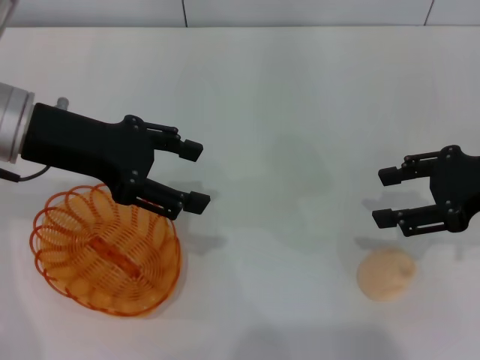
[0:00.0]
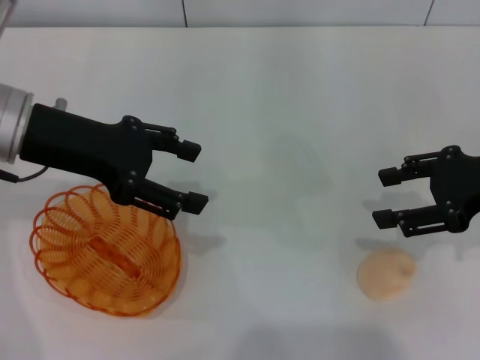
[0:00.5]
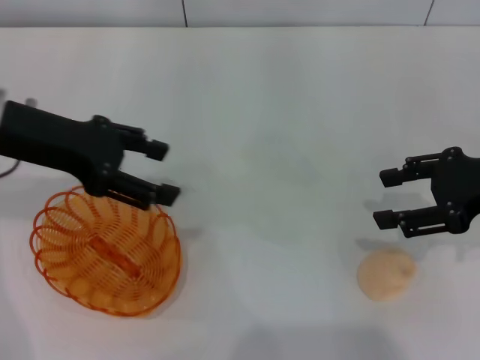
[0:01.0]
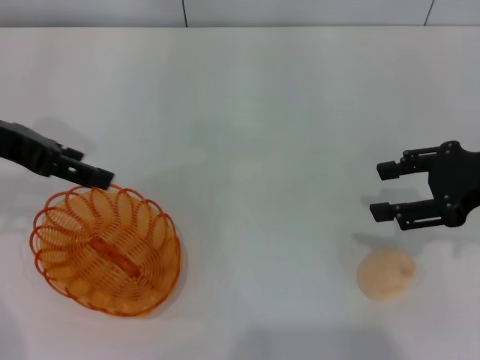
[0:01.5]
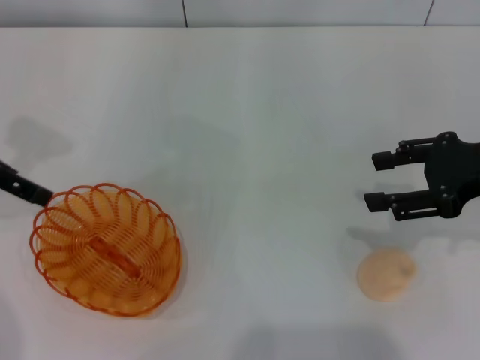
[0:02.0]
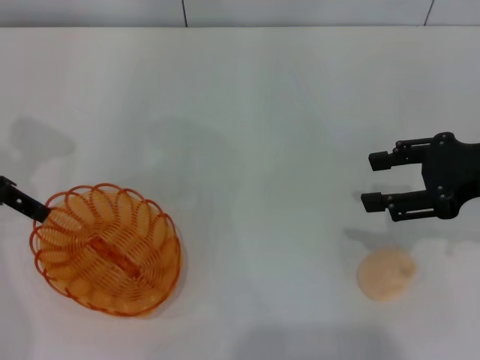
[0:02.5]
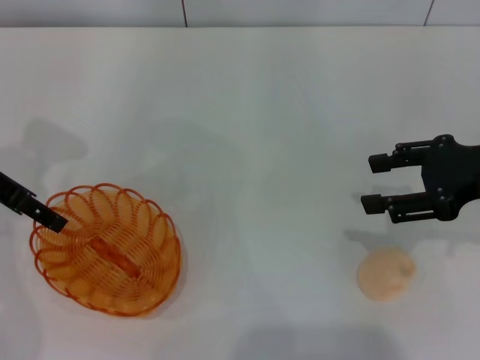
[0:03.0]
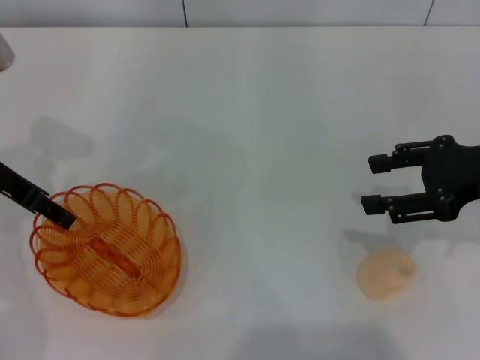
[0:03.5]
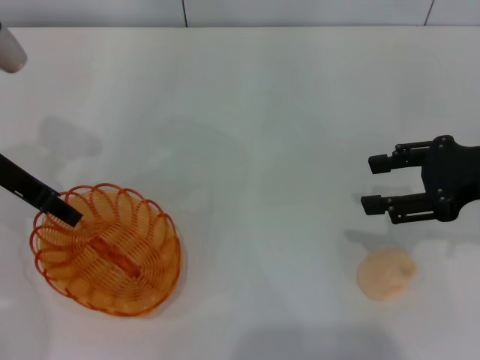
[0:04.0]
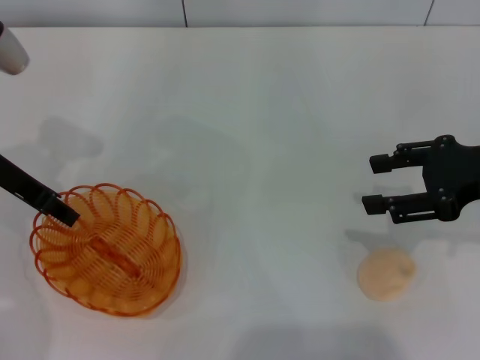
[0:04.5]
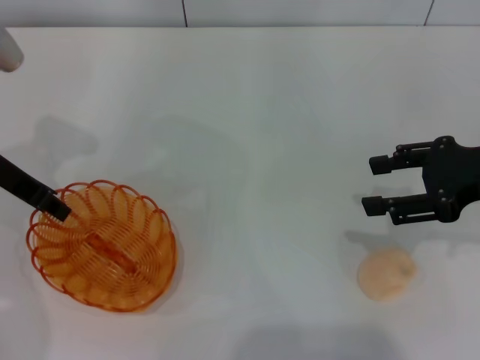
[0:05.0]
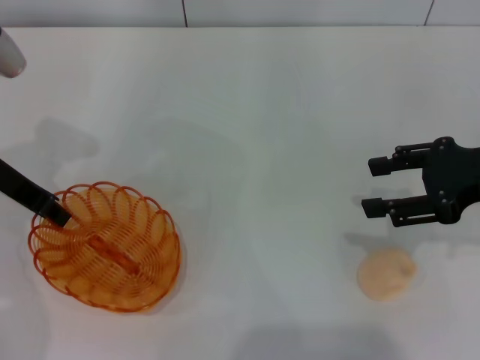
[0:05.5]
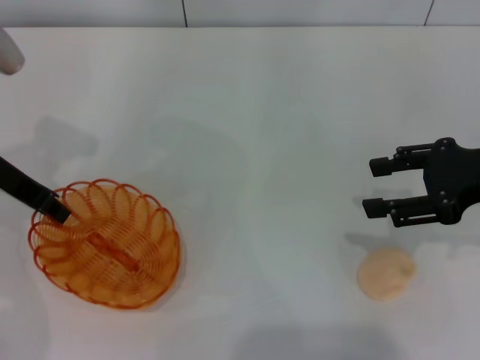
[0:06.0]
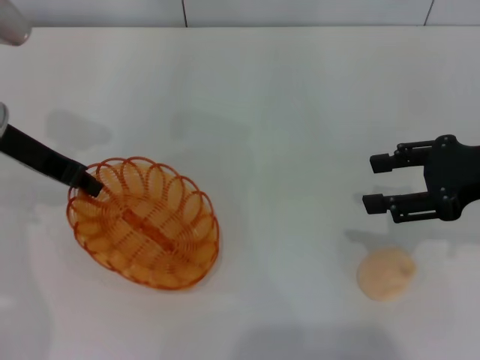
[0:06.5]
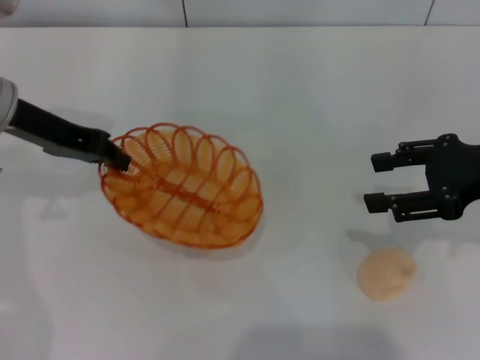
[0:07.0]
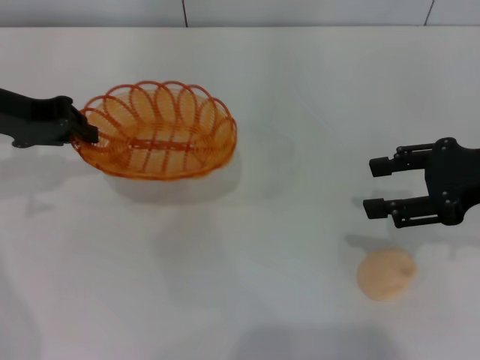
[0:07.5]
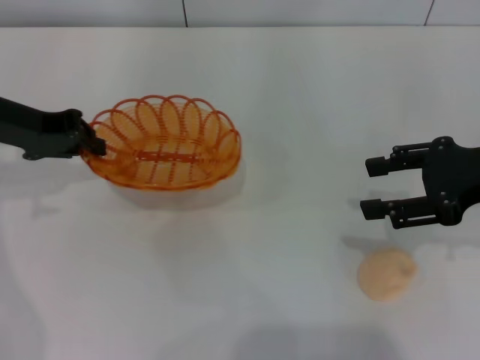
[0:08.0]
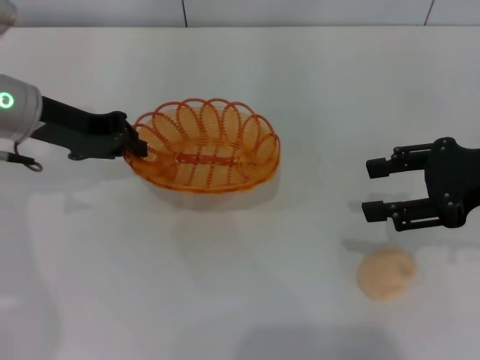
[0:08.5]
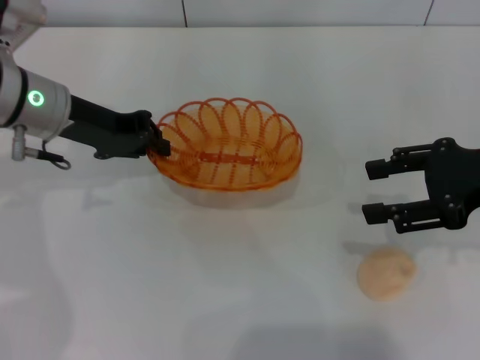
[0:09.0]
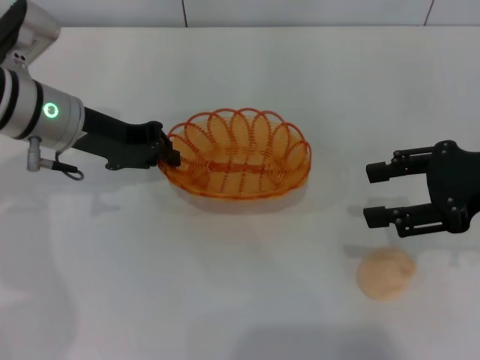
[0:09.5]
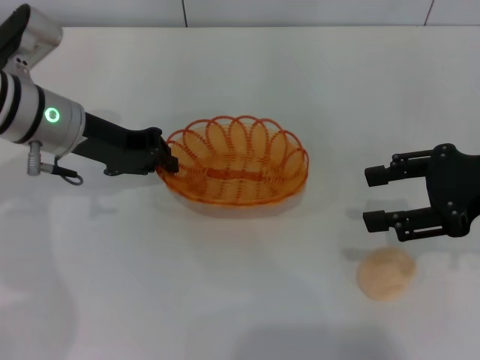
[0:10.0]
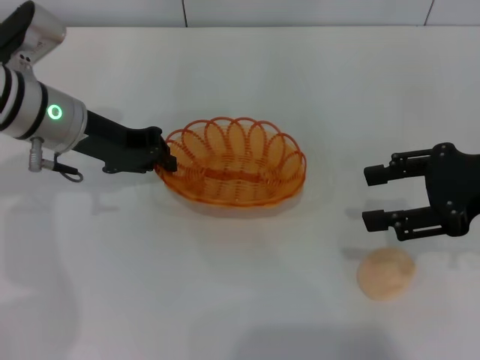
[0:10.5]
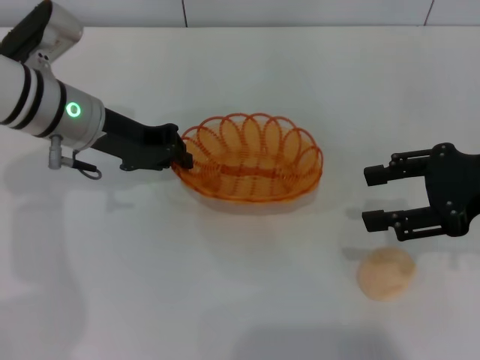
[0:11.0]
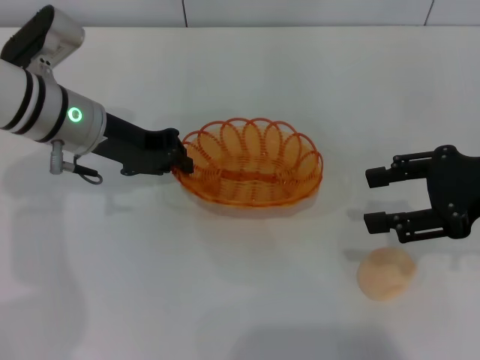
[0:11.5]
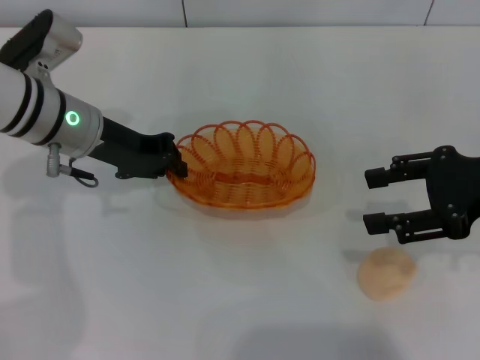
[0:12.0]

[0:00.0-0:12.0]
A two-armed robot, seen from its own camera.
Step, 0:00.0 to 0:07.0: Pick up the basket with the left gripper.
0:00.0 to 0:02.0: The left gripper travels to the left by some 10 cm.
0:02.0 to 0:04.0: The left gripper is displaced downward by approximately 5 cm.
0:04.0 to 0:06.0: The left gripper closes up.
0:08.0 to 0:10.0: The left gripper goes approximately 5 cm to the right.
0:10.0 to 0:12.0: There are only small adjustments of the grippers.

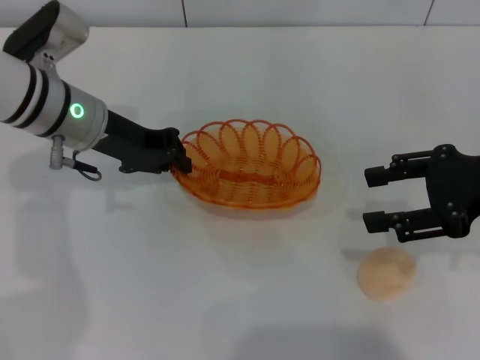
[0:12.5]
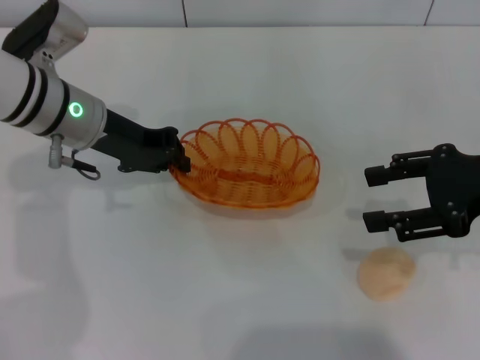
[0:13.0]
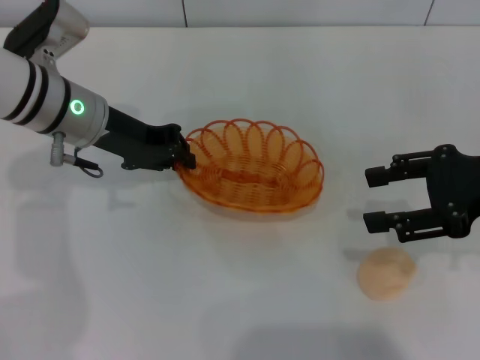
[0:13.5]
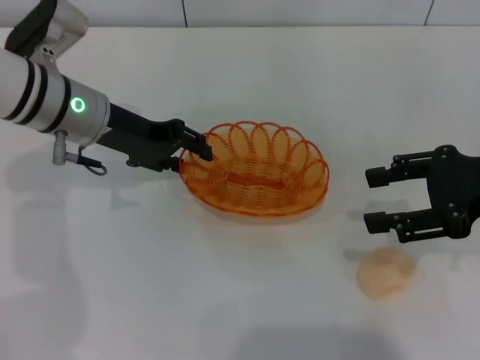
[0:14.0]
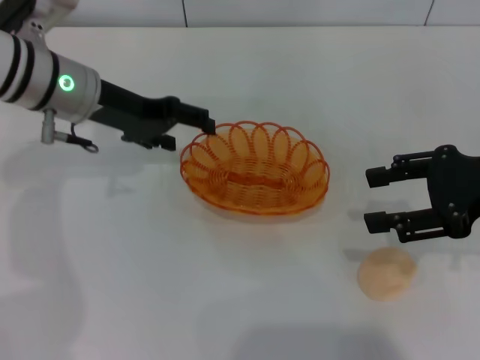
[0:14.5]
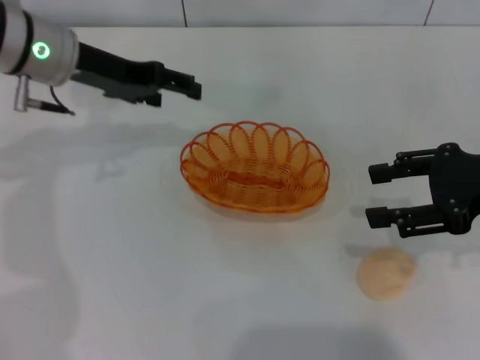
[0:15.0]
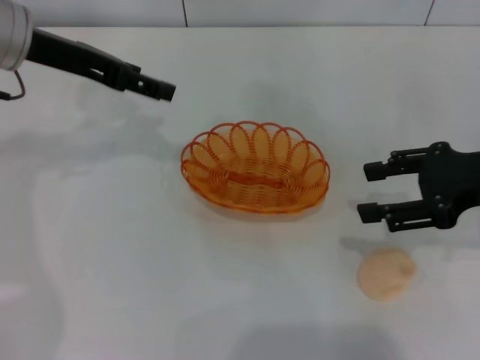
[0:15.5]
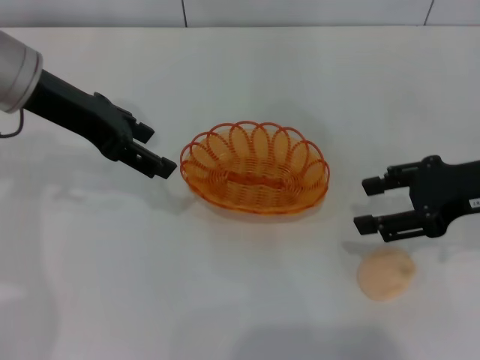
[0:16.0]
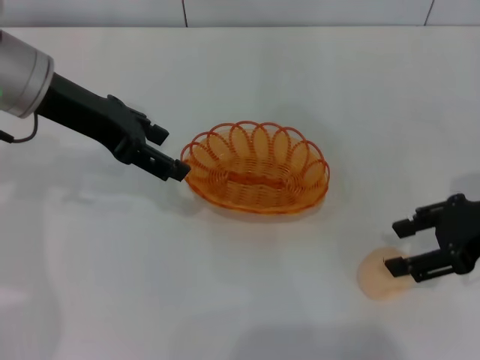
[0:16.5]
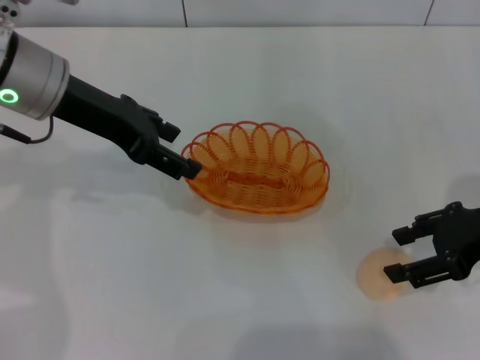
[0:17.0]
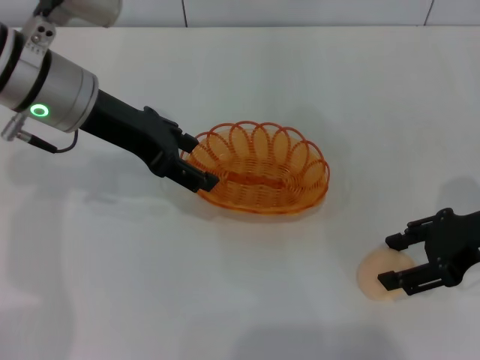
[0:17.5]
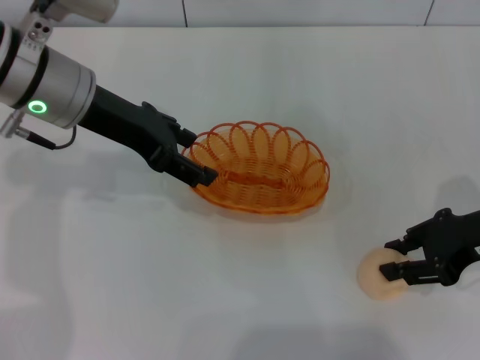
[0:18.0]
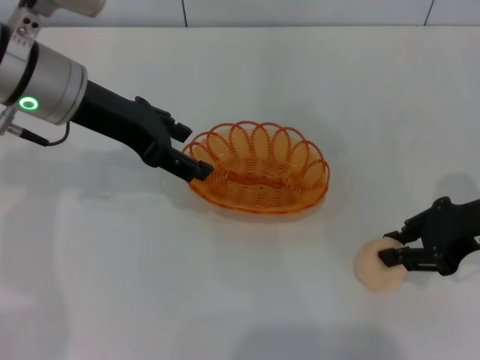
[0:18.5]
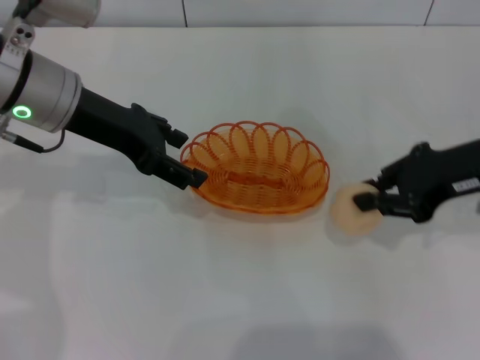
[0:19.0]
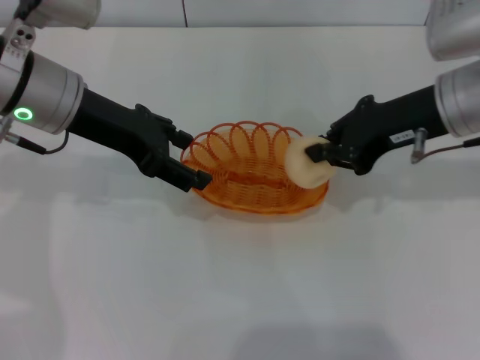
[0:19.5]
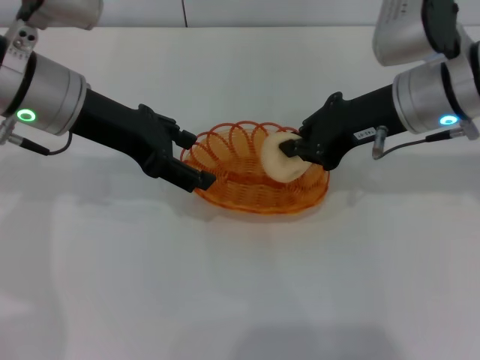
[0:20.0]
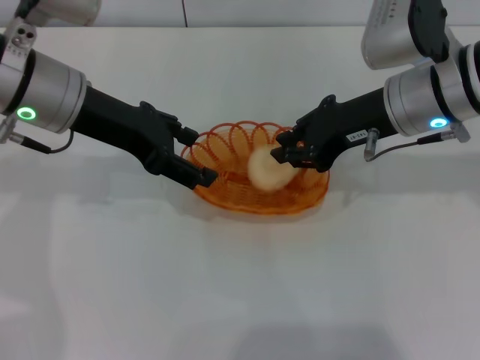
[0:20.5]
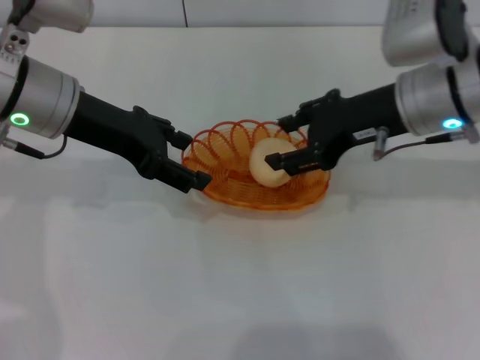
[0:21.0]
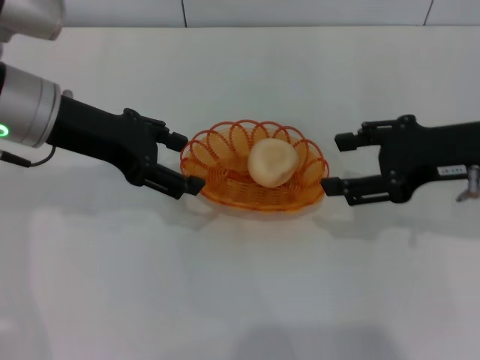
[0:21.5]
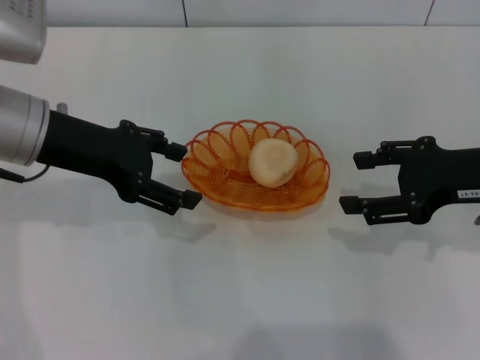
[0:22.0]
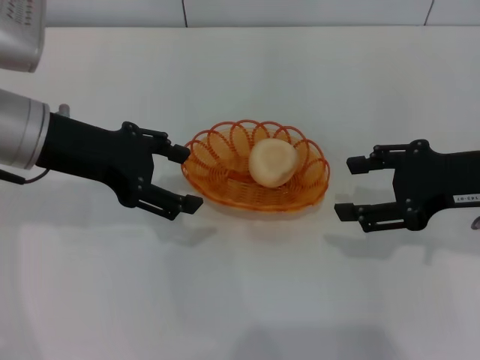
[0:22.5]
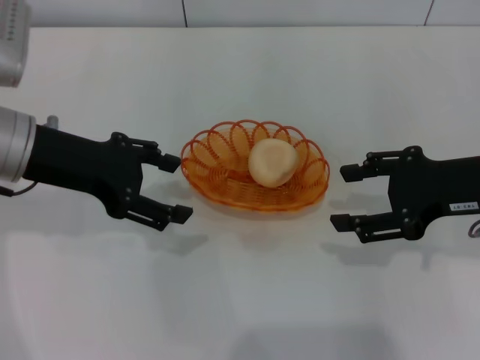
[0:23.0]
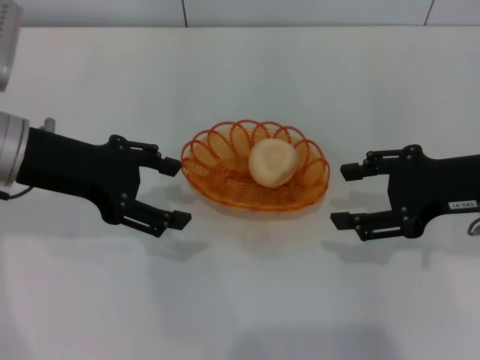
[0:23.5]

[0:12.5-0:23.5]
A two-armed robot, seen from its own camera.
Step, 0:12.5 to 0:14.5: Place the basket in the center of view with the left gripper.
Step, 0:15.0 to 0:19.0: Pick up the egg yolk pastry with the right gripper.
Step, 0:19.5 to 0:21.0: Place the egg yolk pastry into the basket with the right gripper.
0:12.5 to 0:14.5: The left gripper opens.
0:14.5 to 0:16.0: The left gripper moves upward, roughly 5 cm.
0:16.0 to 0:18.0: The grippers make only small movements.
0:18.0 to 0:20.0: The right gripper travels to the left, forward and upward by approximately 15 cm, and closes its fingers.
0:20.0 to 0:21.5: The right gripper moves to the right and backward, approximately 10 cm, and opens its fingers.
0:21.5 to 0:23.5: The grippers stay close to where they were, moving slightly.
